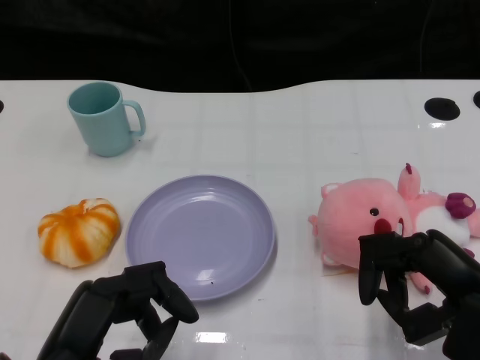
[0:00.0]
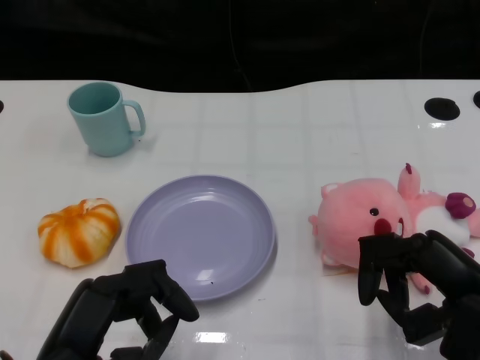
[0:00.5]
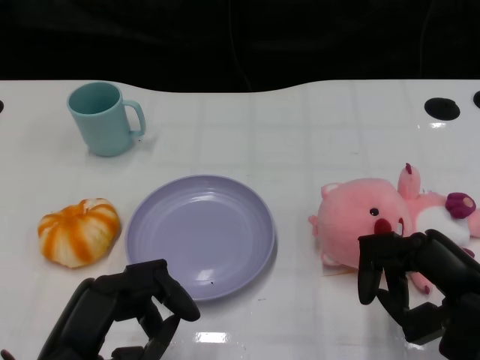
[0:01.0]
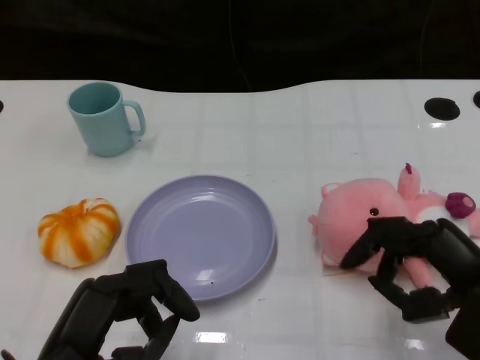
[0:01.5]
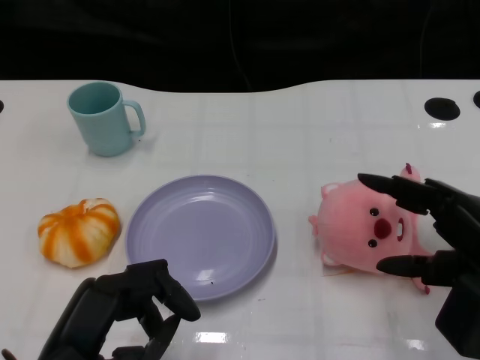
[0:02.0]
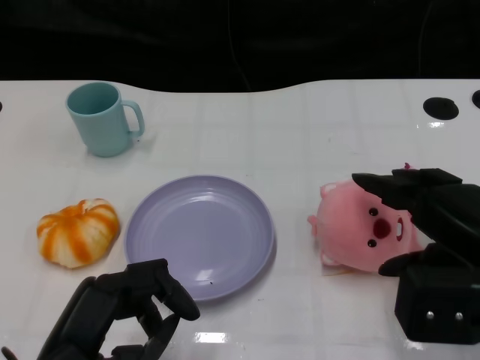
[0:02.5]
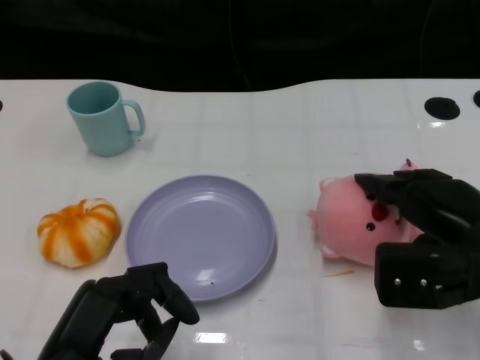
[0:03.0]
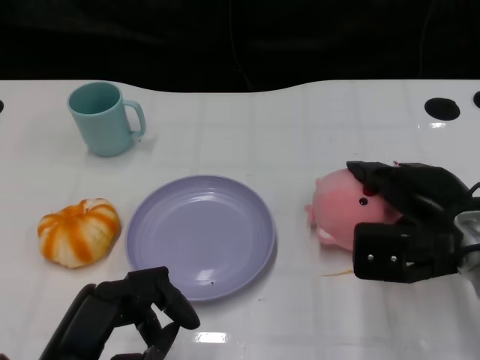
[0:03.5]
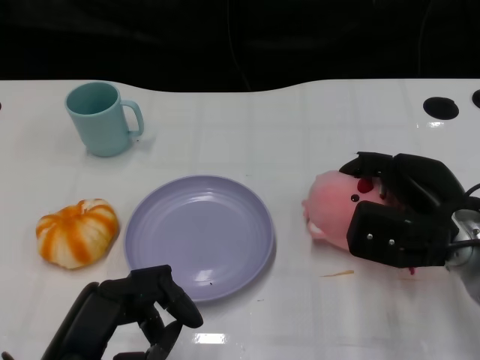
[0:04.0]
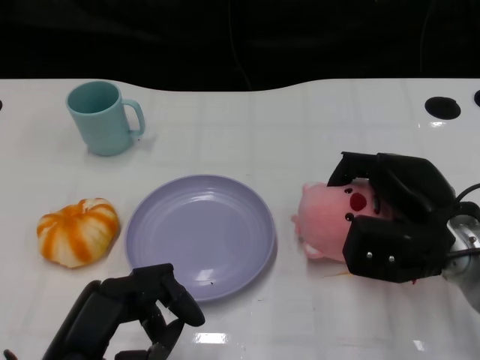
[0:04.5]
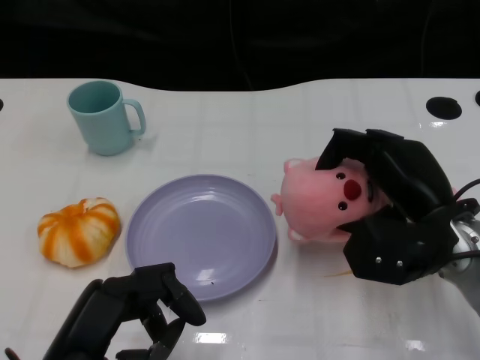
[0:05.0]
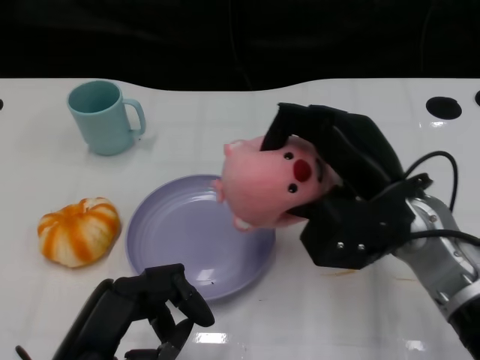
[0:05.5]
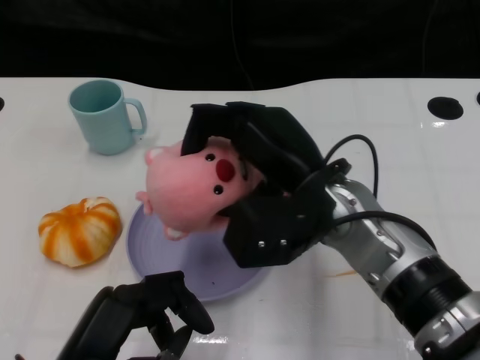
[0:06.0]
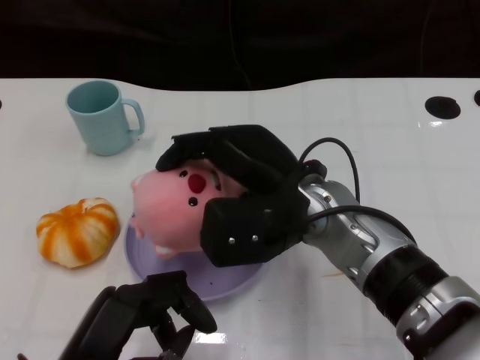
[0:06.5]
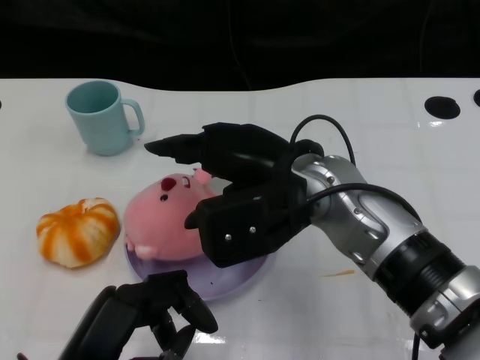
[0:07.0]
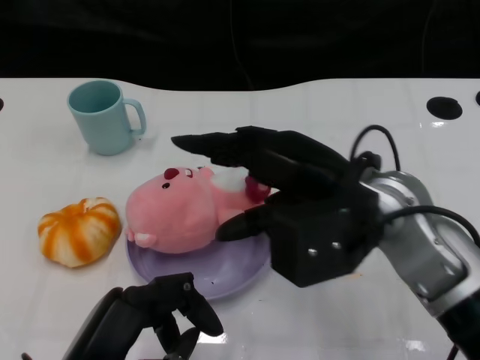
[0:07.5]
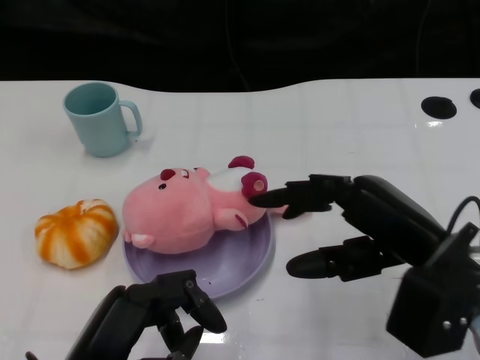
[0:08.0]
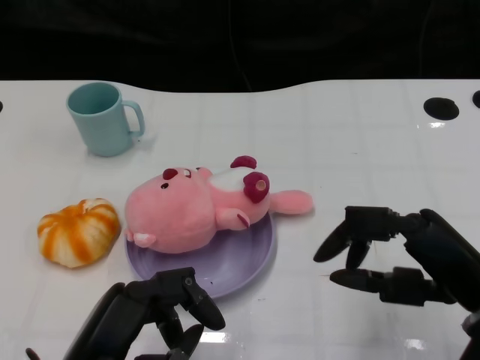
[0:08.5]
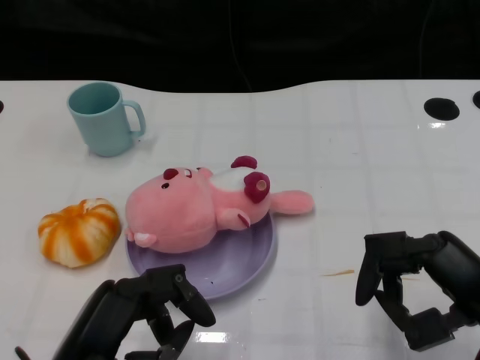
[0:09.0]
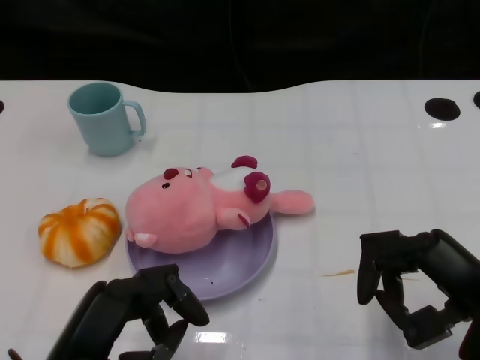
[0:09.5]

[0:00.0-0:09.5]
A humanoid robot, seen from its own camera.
Task of the whole recording: Pick up the doll on the other side of the plate and place it into the plate.
Step, 0:01.5 to 0:05.5: Grasp the pink doll with the right gripper.
Step, 0:06.0 to 0:07.5: Place the pink doll into the plate with the right gripper.
0:02.0 to 0:04.0: The right hand heads forward and to the left, covering roughly 10 cm.
0:04.0 to 0:05.5: The right hand is displaced to the left and upward by about 10 cm.
0:07.5 to 0:09.5: The right hand goes about 20 cm to the right, backward and downward.

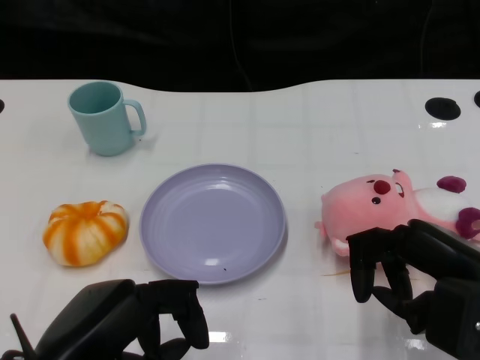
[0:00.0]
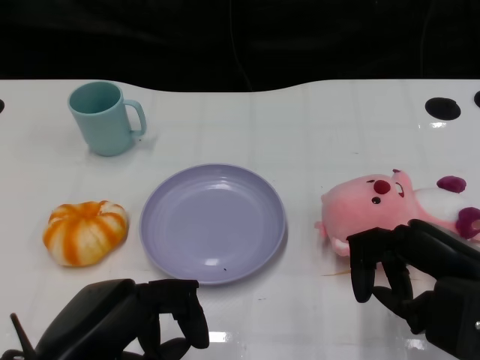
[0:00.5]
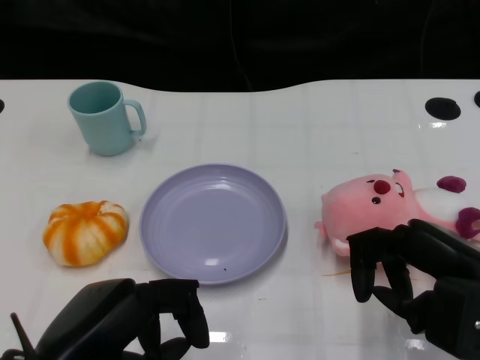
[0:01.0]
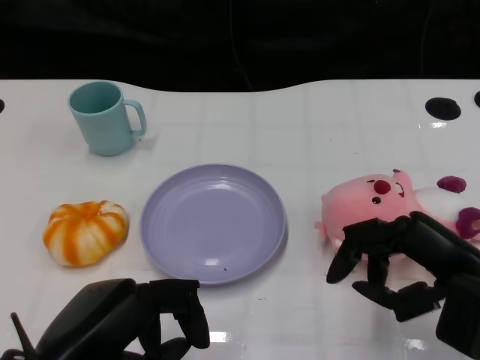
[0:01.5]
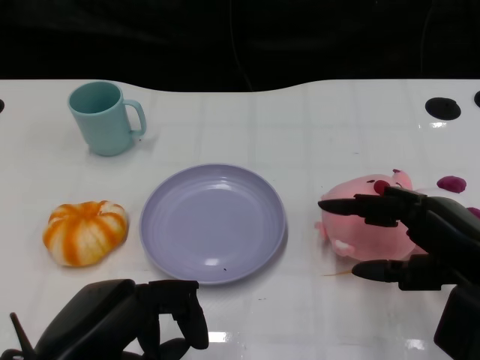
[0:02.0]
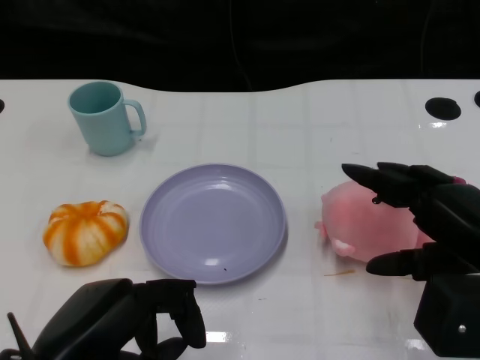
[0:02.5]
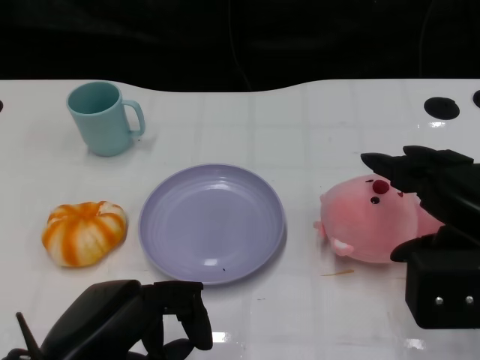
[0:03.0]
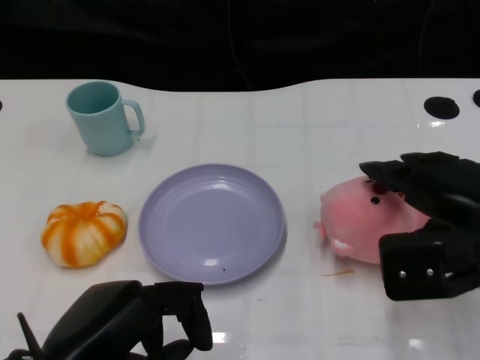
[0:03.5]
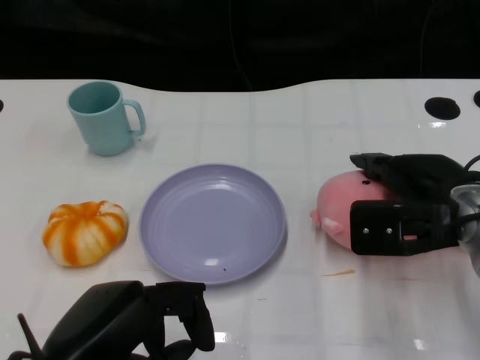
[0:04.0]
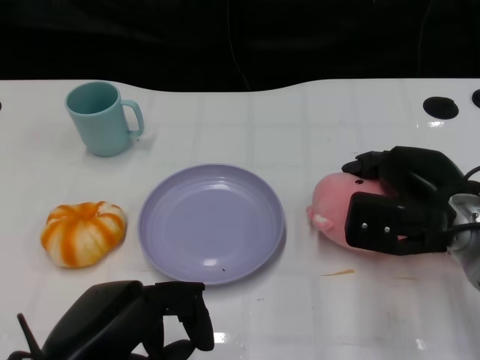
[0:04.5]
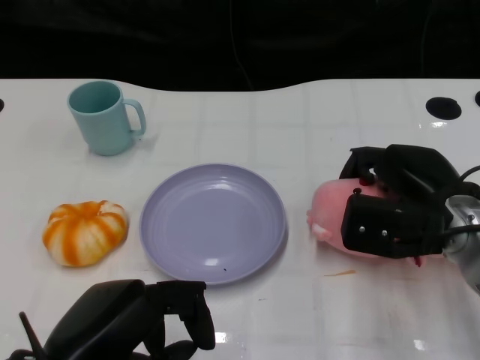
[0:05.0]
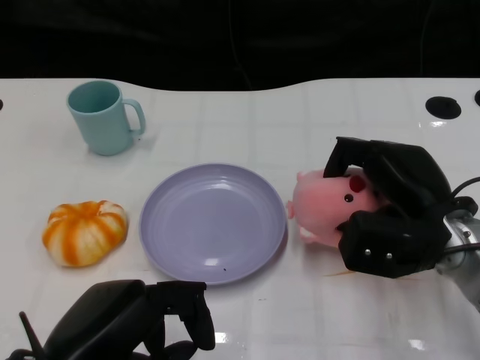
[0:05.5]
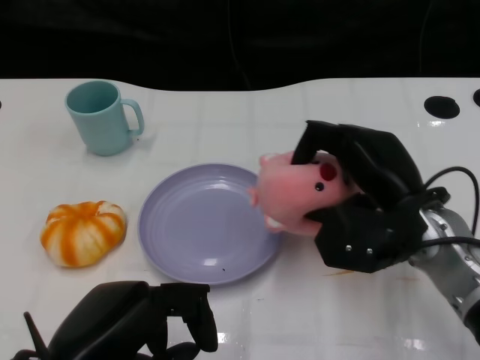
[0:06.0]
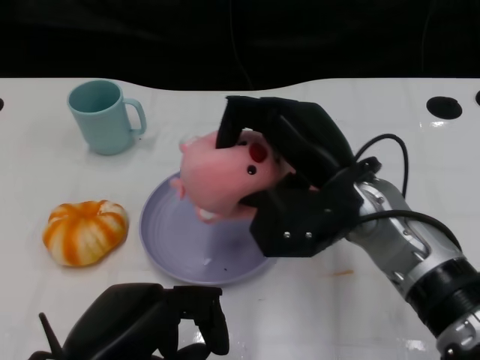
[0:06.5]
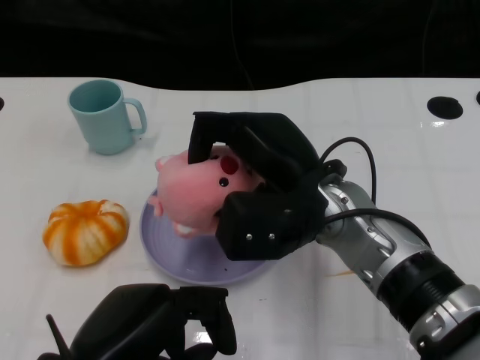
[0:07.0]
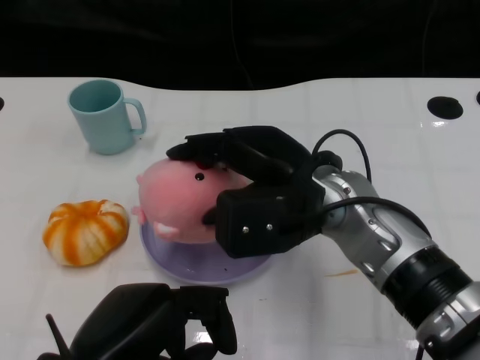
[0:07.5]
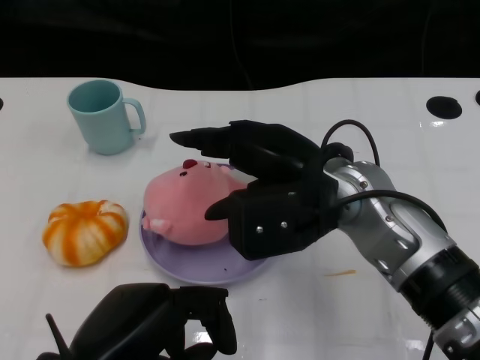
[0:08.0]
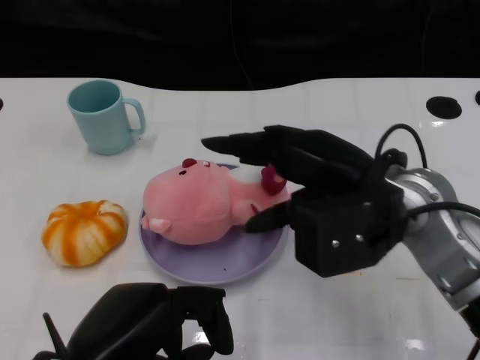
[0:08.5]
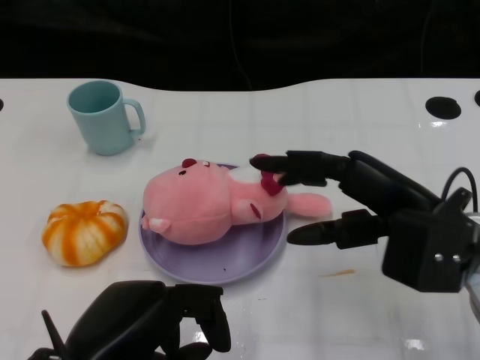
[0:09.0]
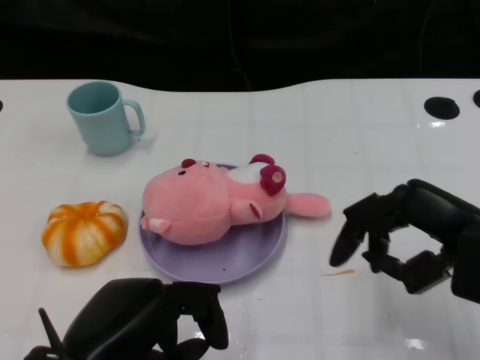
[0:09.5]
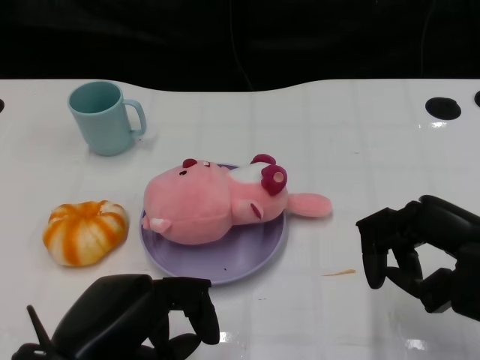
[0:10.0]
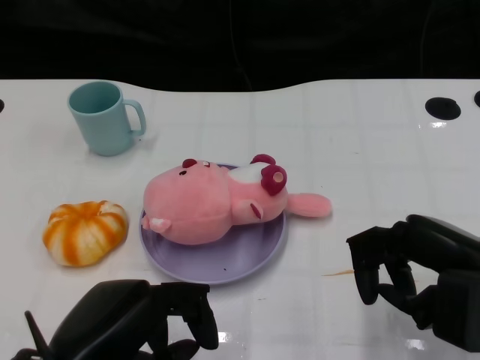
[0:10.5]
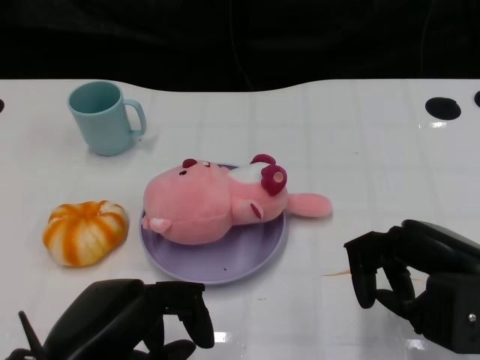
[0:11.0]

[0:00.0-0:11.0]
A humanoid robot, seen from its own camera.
Task of the whole recording: Pick up the doll on the other side of the plate and place it into the plate.
Step, 0:01.5 to 0:06.0: Grasp the pink doll with the right gripper.
Step, 0:06.5 to 0:08.0: Place the pink doll into the plate with the right gripper.
0:02.0 to 0:03.5: The right hand moves roughly 5 cm.
0:03.5 to 0:05.5: The right hand moves downward, about 5 cm.
0:05.5 to 0:07.5: The right hand is displaced to the left and upward by roughly 15 cm.
0:07.5 to 0:09.0: The right hand is displaced to the right by about 10 cm.
0:09.0 to 0:11.0: The right hand goes roughly 5 cm to the right.

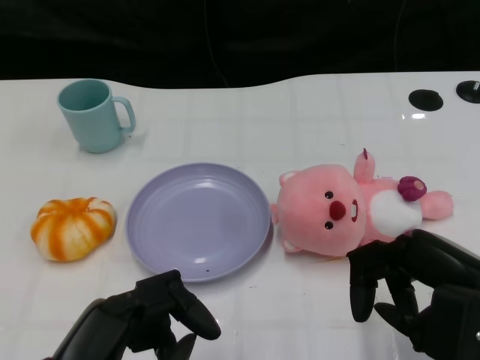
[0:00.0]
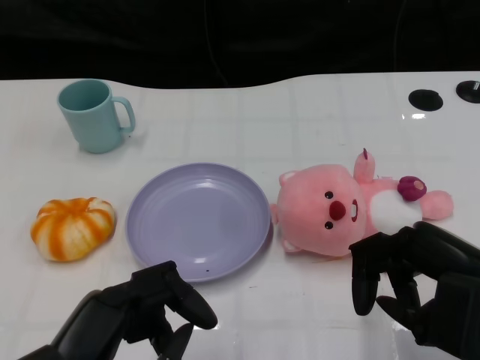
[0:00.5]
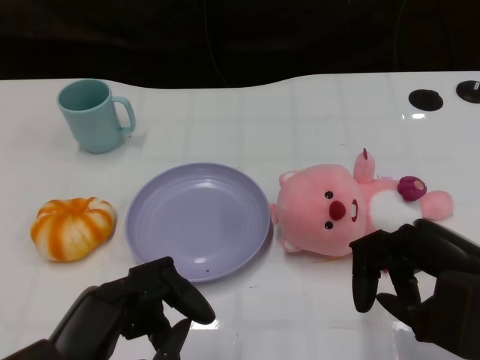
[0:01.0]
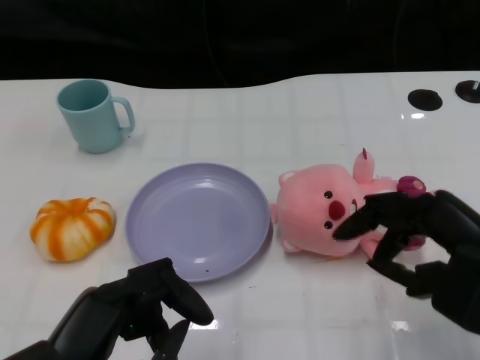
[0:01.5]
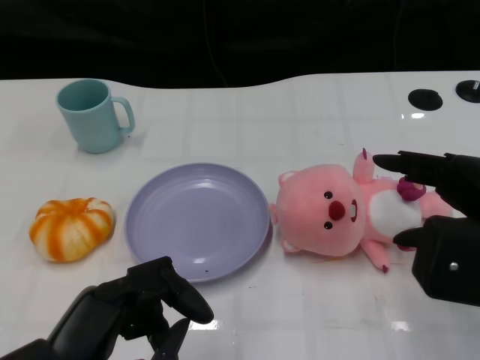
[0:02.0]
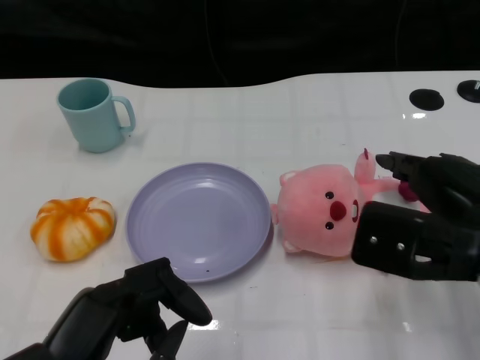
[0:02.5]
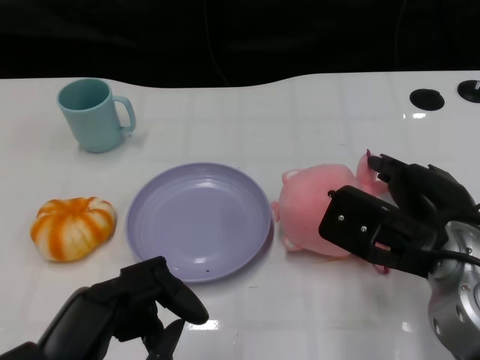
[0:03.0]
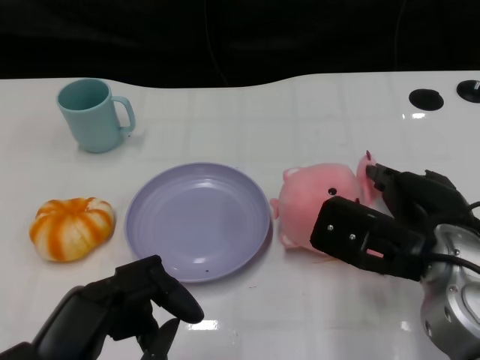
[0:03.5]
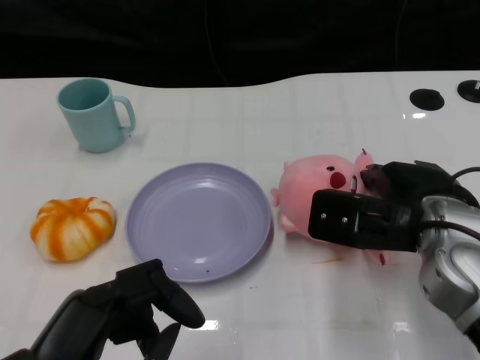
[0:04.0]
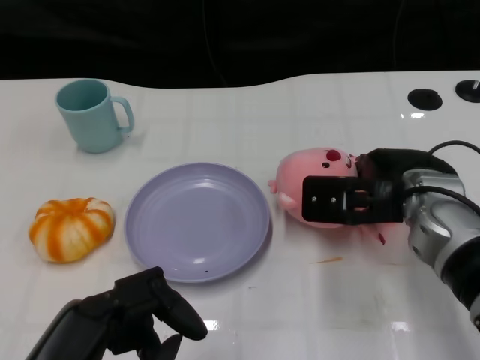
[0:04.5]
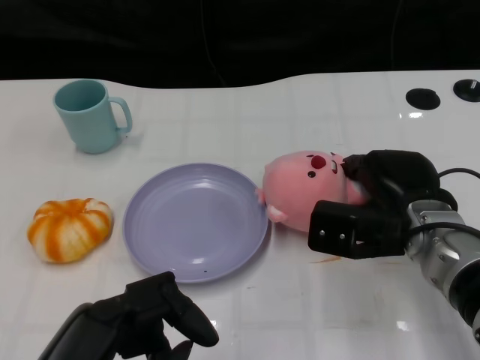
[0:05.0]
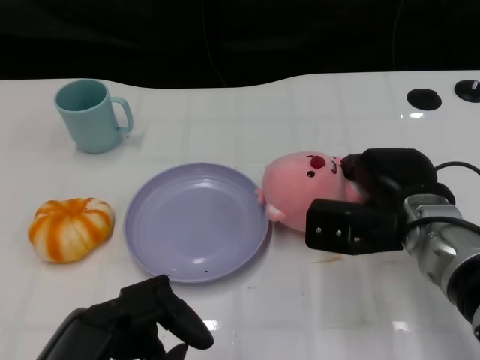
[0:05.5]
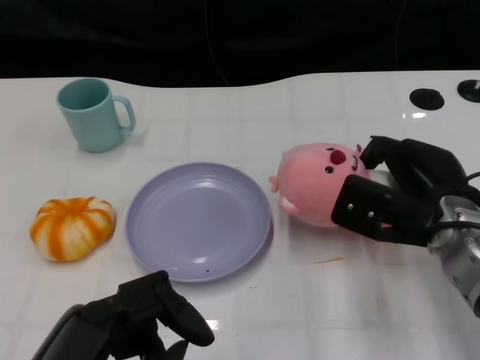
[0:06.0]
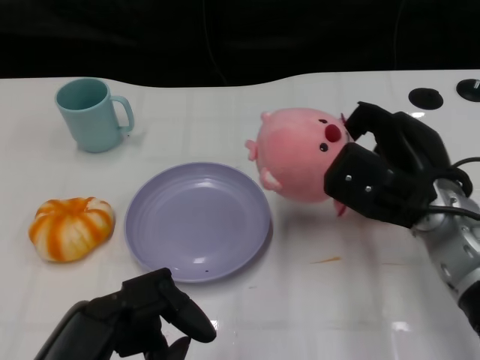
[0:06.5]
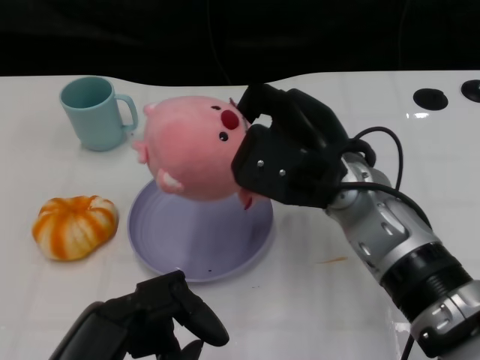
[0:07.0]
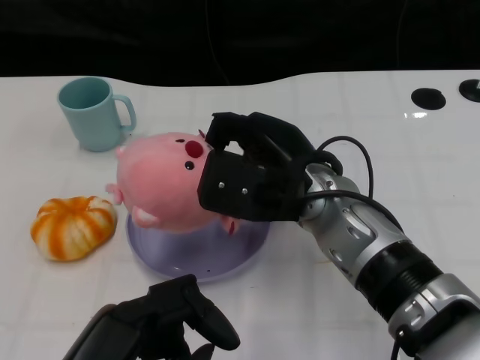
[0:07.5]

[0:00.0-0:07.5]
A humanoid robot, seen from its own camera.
Task of the whole recording: Pick up the doll on the other side of the plate and place it into the plate.
Step, 0:01.5 to 0:06.5: Grasp the pink doll with the right gripper.
0:02.0 to 0:04.0: The right hand shifts approximately 10 cm forward, to the left and downward.
0:04.0 to 0:05.5: The right hand shifts by about 5 cm.
0:05.5 to 0:07.5: The right hand is displaced to the left and upward by roughly 10 cm.
